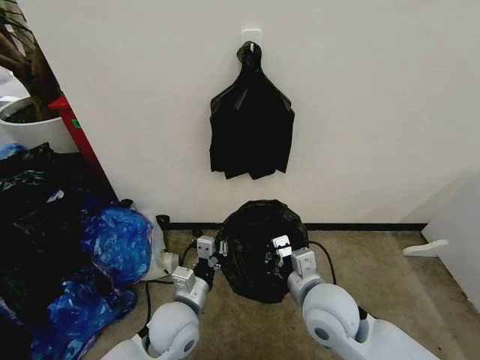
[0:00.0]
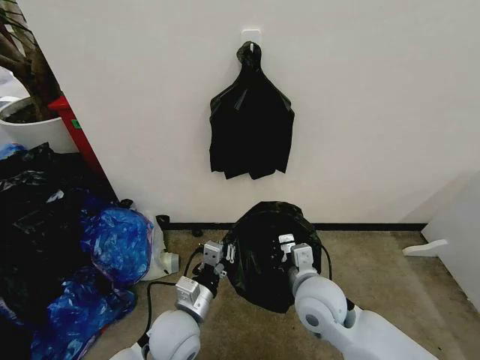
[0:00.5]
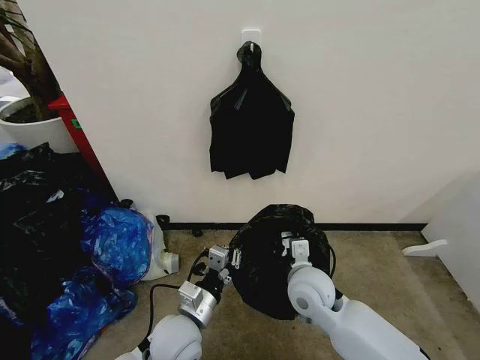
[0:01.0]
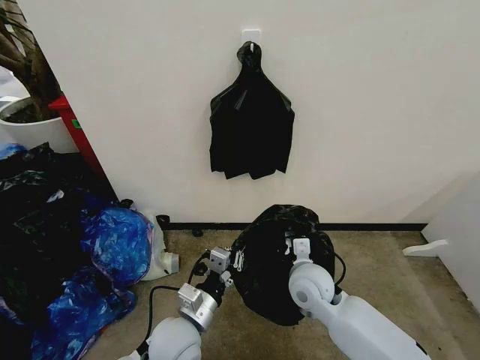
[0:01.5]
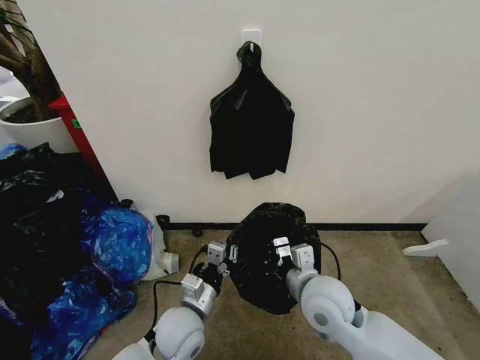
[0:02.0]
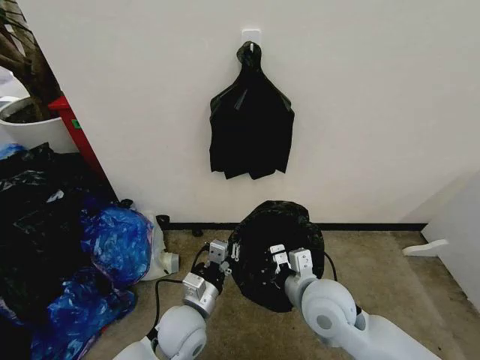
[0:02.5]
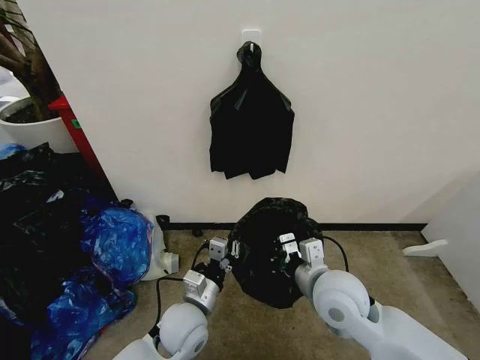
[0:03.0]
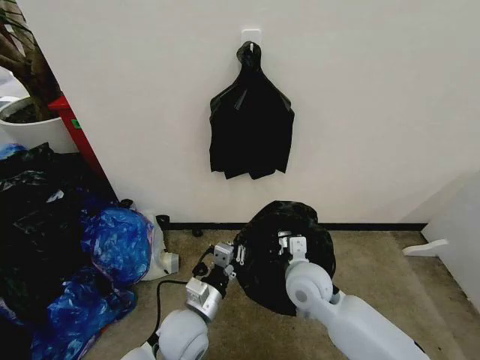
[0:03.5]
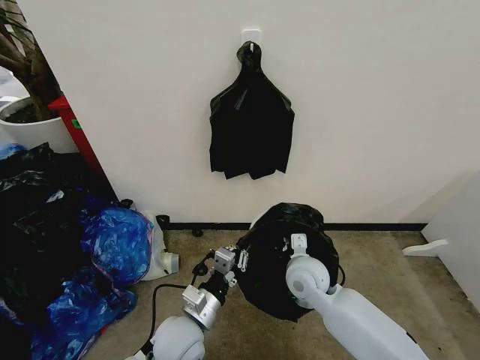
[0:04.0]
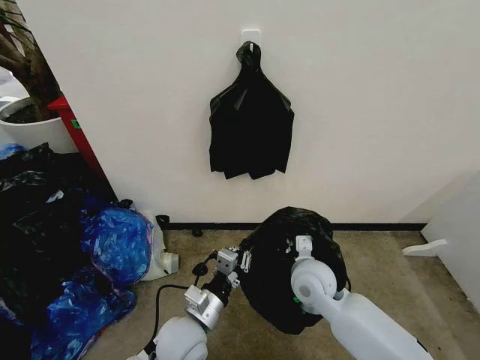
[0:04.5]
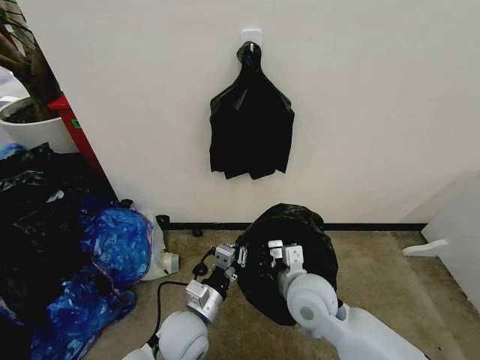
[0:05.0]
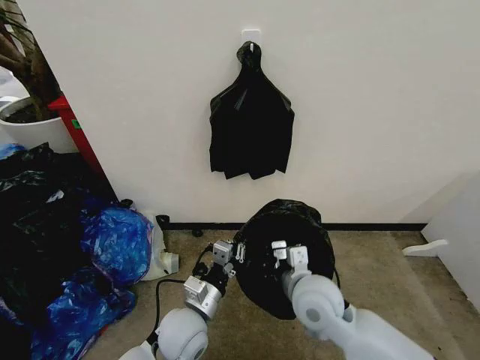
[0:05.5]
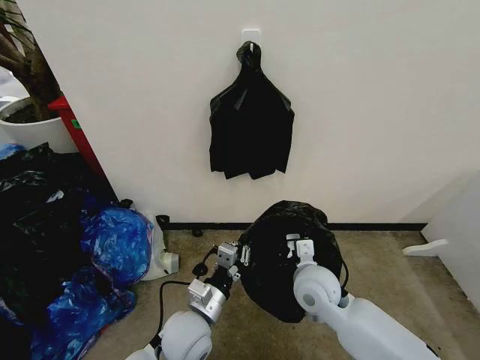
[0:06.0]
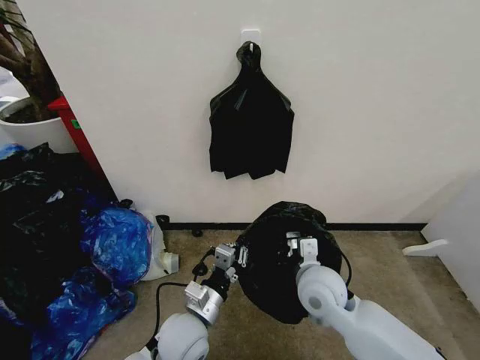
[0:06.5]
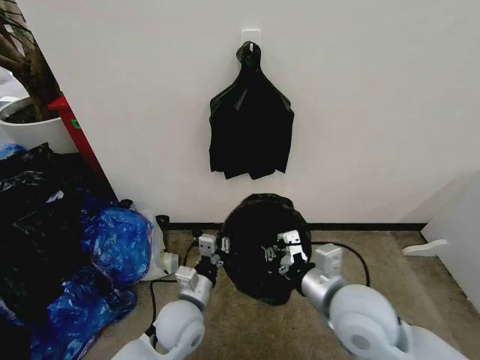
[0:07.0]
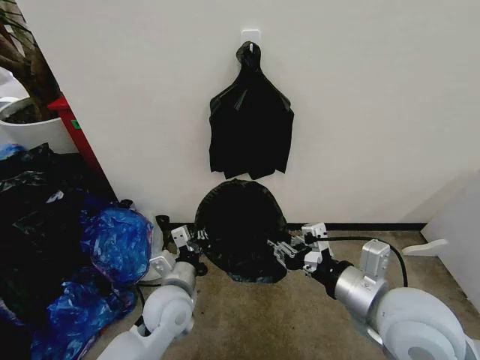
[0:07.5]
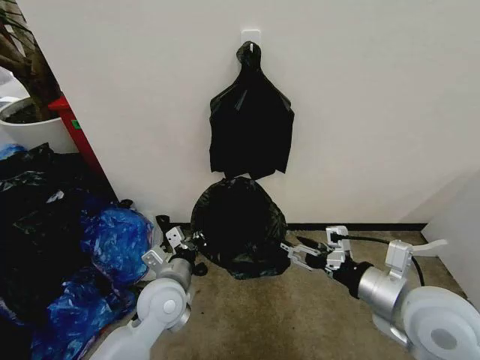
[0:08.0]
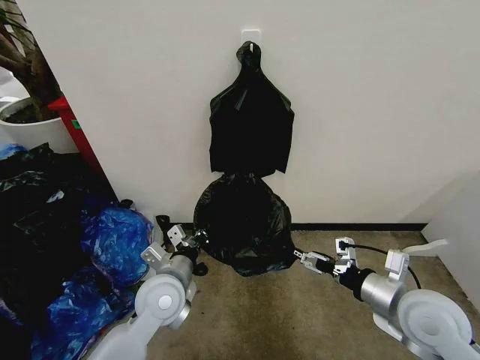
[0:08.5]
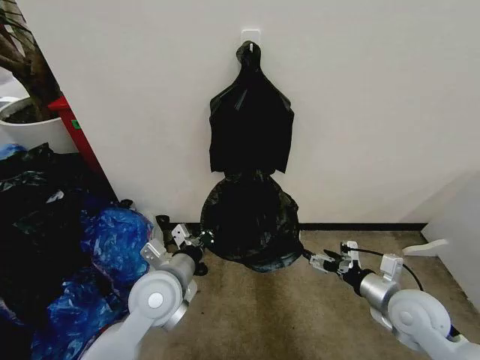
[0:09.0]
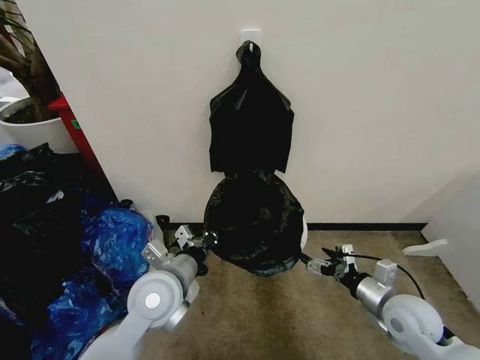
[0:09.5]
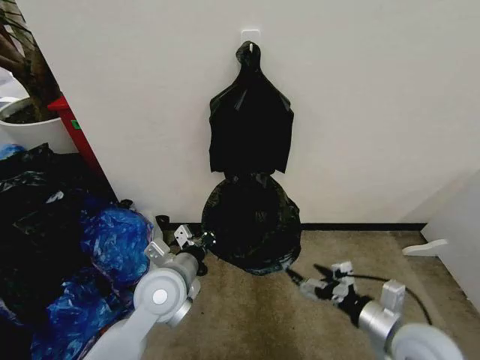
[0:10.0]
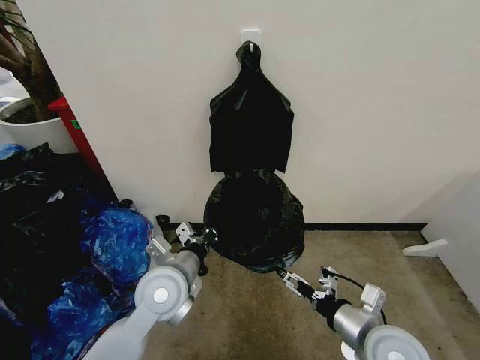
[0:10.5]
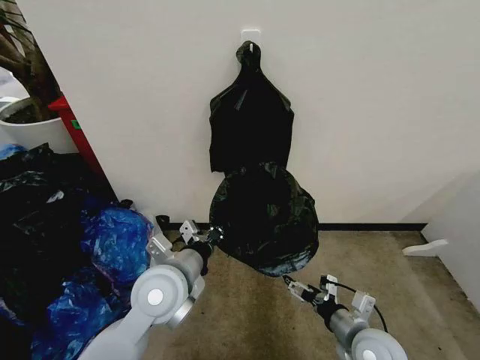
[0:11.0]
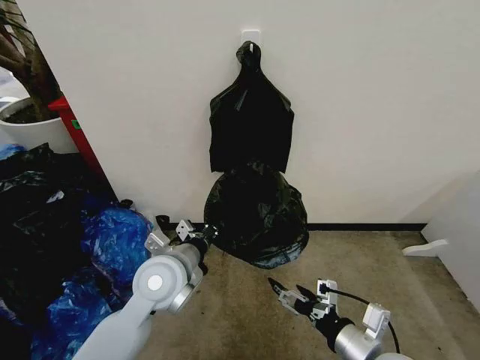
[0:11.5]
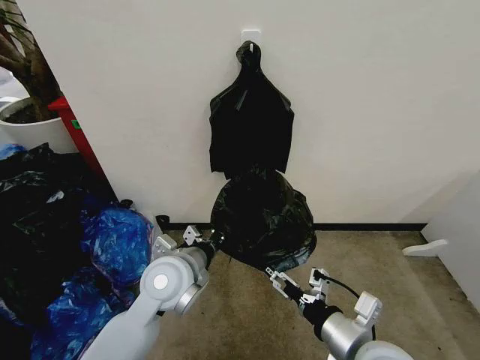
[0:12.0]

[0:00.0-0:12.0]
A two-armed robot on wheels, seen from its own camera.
Task of the whole recording: Place the garbage bag over the trash bin.
0:02.0 to 0:04.0: The right gripper heads forward and downward, covering about 10 cm.
0:06.0 to 0:08.0: The left gripper shifts roughly 5 cm to the left and forward. Meanwhile the right gripper is displaced upward, to the right and backward by roughly 20 cm, and opens up.
0:08.0 to 0:10.0: The right gripper shifts some 10 cm downward.
0:10.0 to 0:12.0: The right gripper travels to the left by roughly 10 cm, and goes downward and returns, some 5 cm each way.

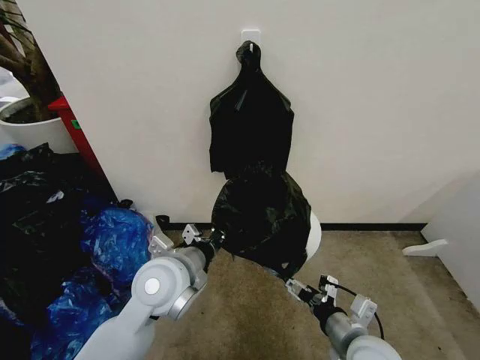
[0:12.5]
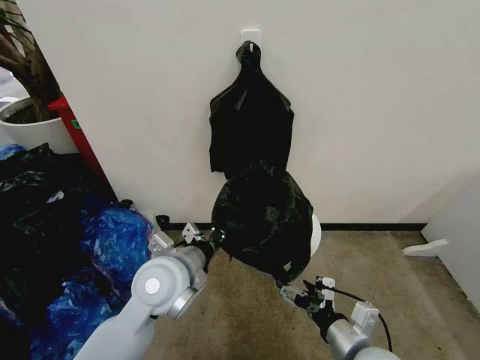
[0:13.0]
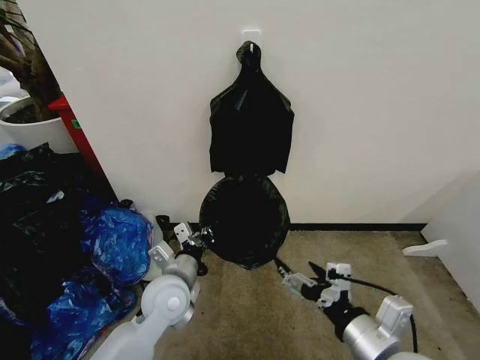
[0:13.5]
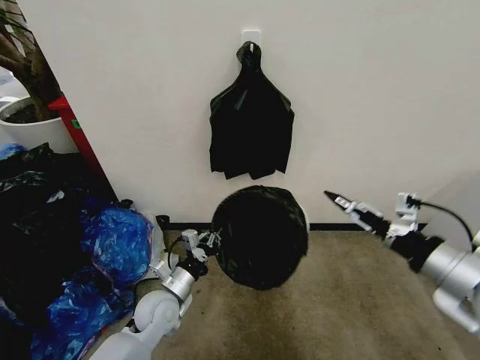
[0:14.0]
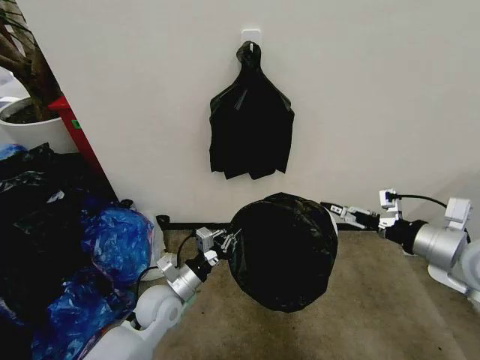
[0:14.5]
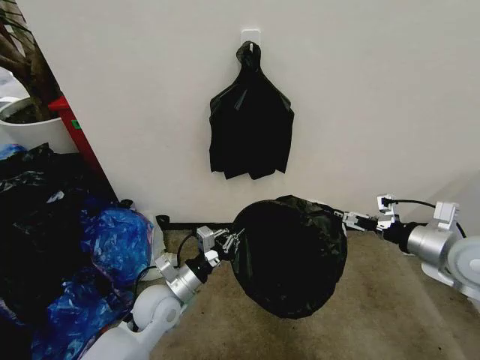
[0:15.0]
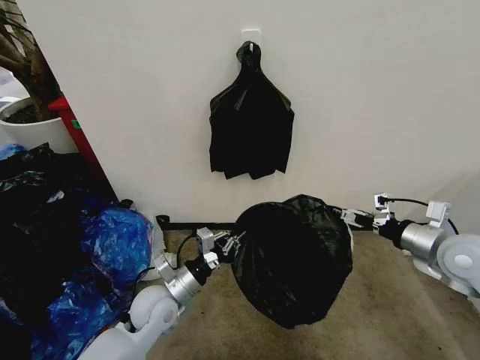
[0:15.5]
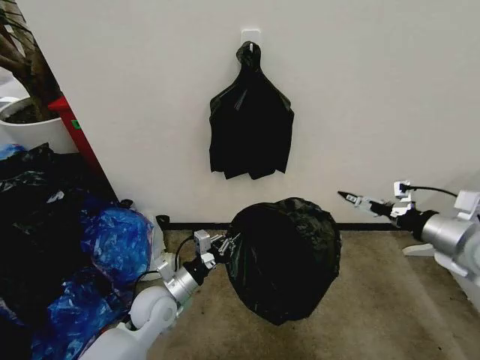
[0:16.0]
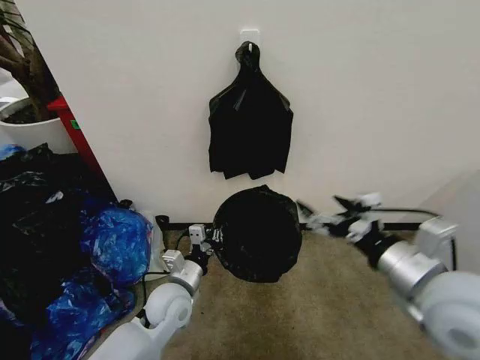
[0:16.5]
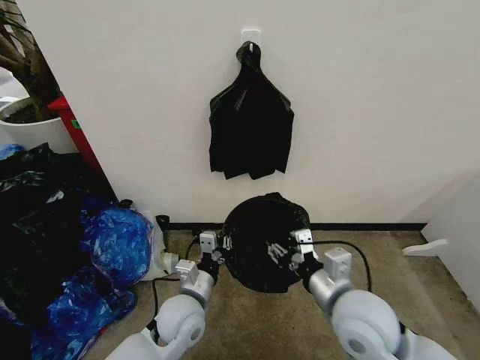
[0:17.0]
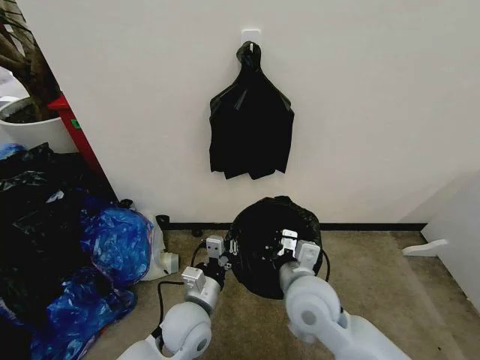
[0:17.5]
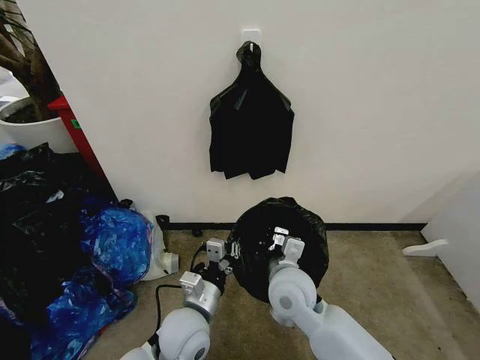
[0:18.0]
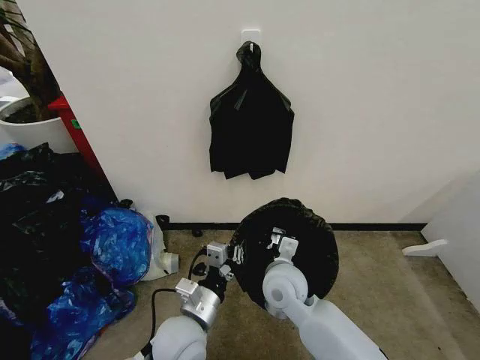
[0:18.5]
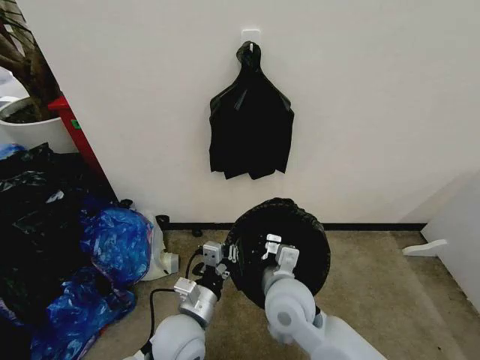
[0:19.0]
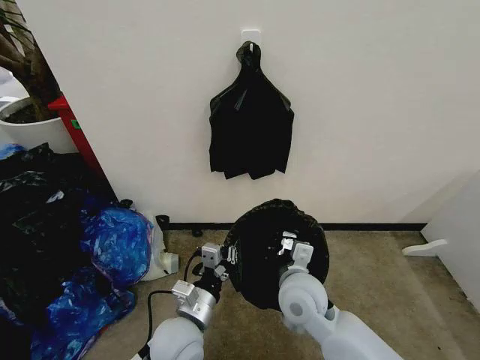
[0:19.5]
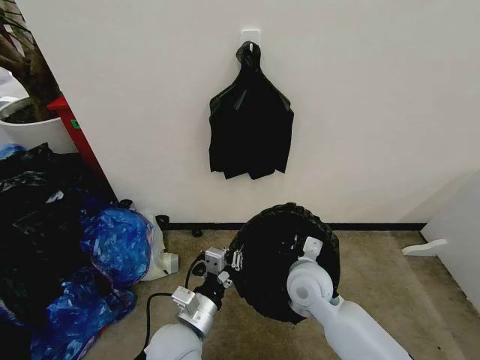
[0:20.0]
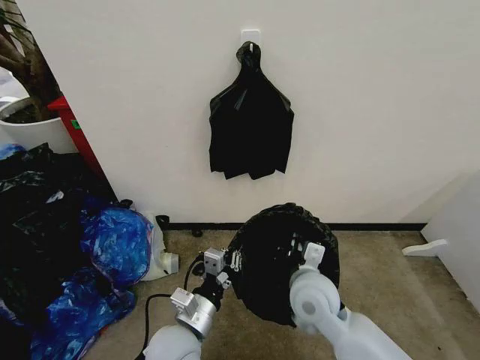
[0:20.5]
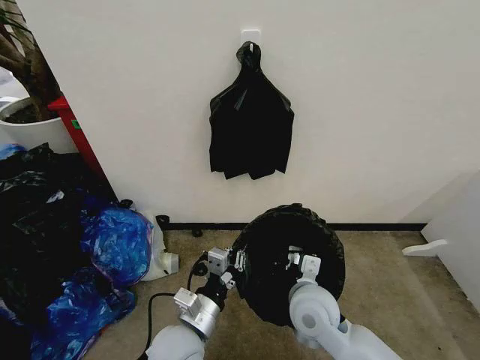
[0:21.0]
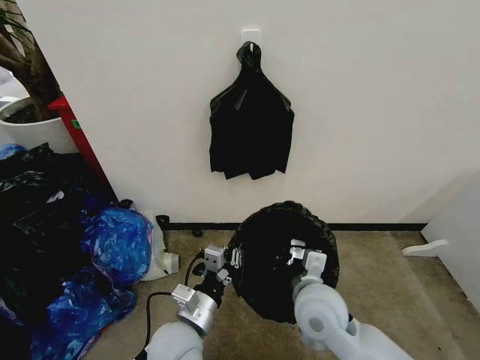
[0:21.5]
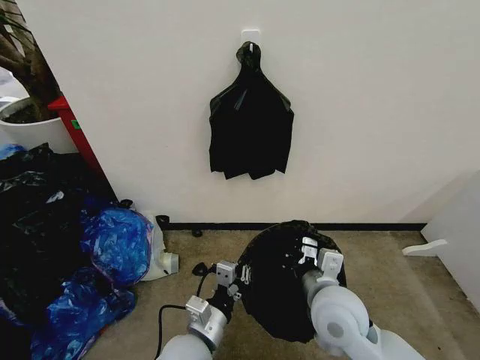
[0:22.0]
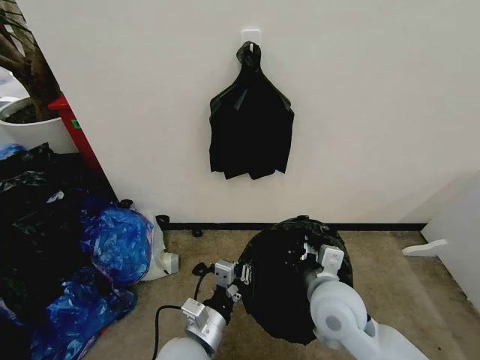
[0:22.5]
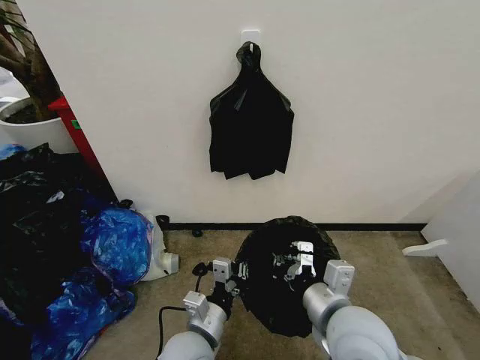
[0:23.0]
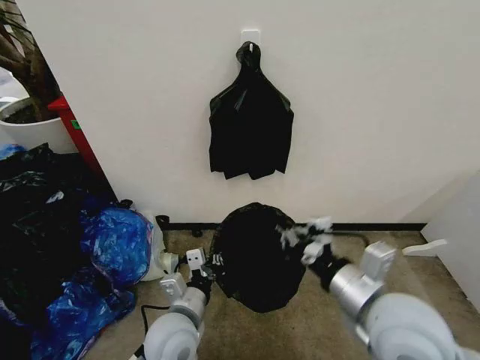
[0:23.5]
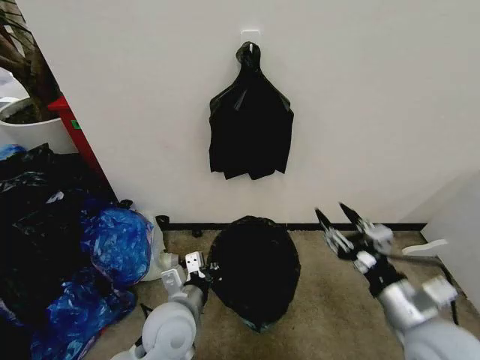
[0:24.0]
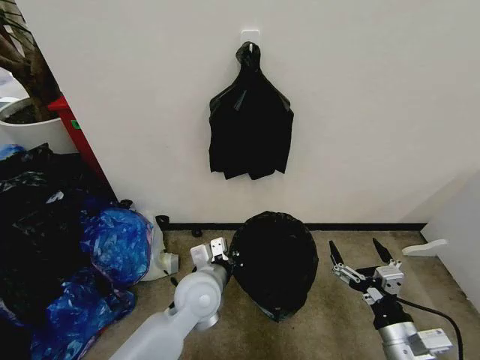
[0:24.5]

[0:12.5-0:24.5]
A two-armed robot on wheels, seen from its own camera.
Task of the whole recording: Place the garbage bag over the trash bin.
0:12.5 to 0:14.5: The left gripper is displaced downward by approximately 15 cm; the right gripper travels upward, to the right and forward by approximately 25 cm.
0:14.5 to 0:16.5: The right gripper heads to the left and backward, covering about 10 cm.
0:16.5 to 0:18.5: The right gripper moves to the left, downward and forward, roughly 30 cm, and closes. Meanwhile the left gripper shifts approximately 10 cm backward.
0:18.5 to 0:20.5: The right gripper changes place by some 5 cm.
0:20.5 to 0:22.5: There are only small adjustments of the grippers.
0:22.5 to 0:24.5: The left gripper goes approximately 10 cm forward. Meanwhile the right gripper is displaced to the right and backward by about 15 cm, and opens up.

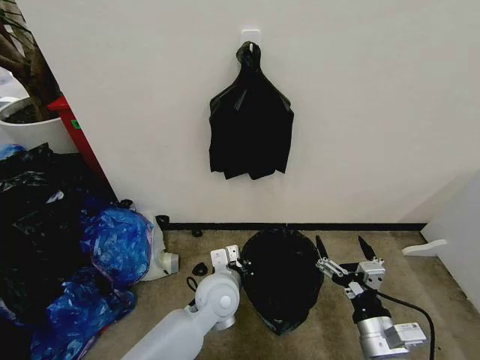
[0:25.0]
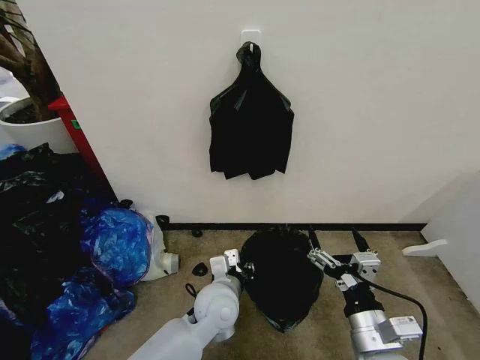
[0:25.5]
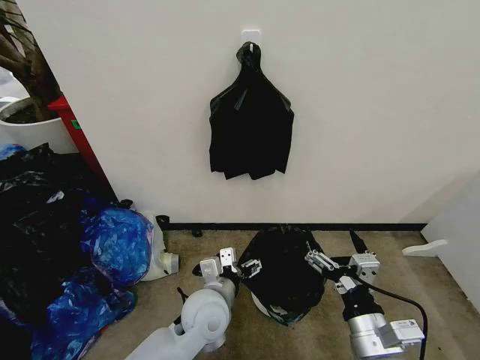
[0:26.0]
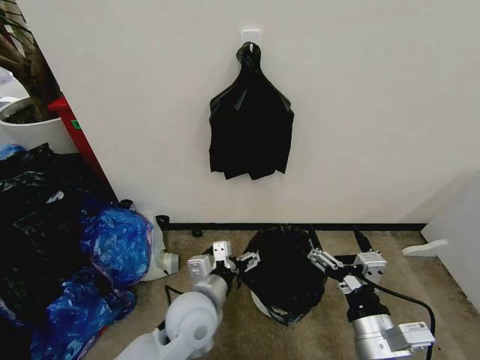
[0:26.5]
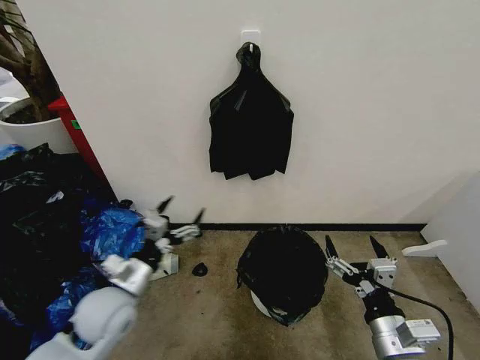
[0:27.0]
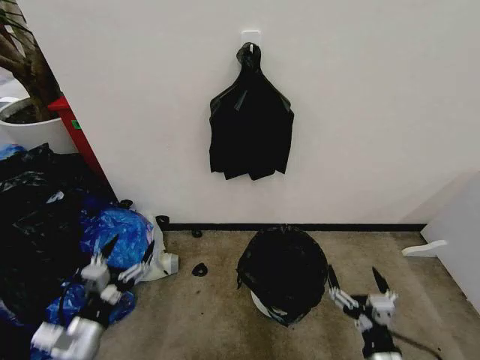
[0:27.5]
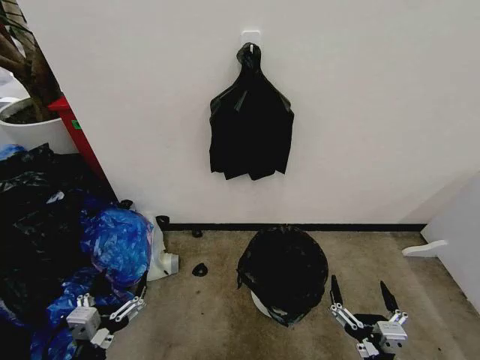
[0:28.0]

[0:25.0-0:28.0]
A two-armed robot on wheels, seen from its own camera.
Task of the whole recording: Place the garbage bag over the trash bin.
0:25.0 to 0:26.5: The right gripper is displaced upward by about 5 cm. Meanwhile the left gripper shifts about 5 cm backward, and opens its fingers.
0:26.5 to 0:28.0: The right gripper moves downward and backward, about 10 cm. Meanwhile the left gripper heads to the left and backward, covering roughly 25 cm.
